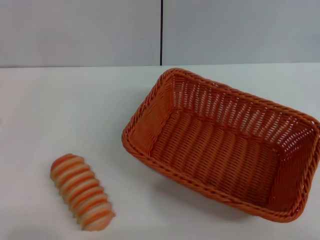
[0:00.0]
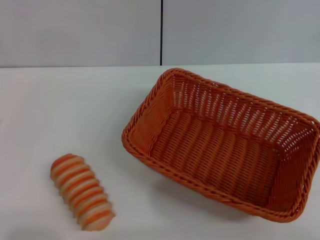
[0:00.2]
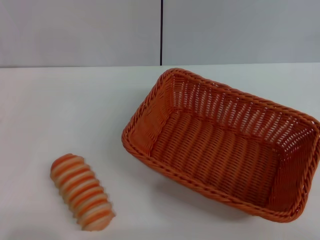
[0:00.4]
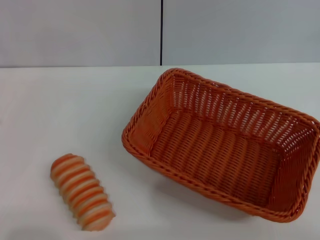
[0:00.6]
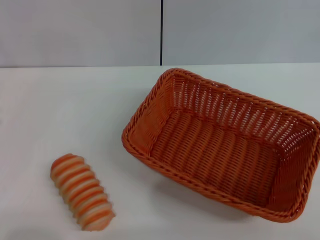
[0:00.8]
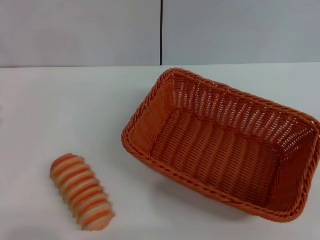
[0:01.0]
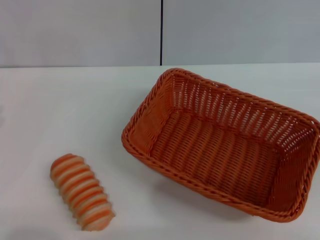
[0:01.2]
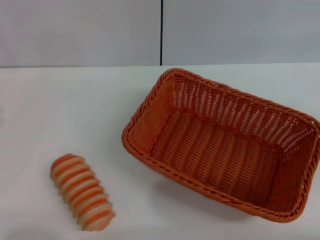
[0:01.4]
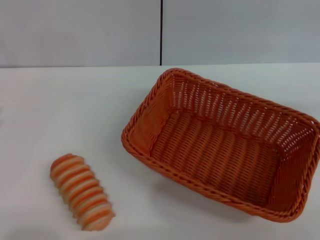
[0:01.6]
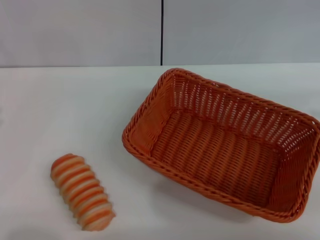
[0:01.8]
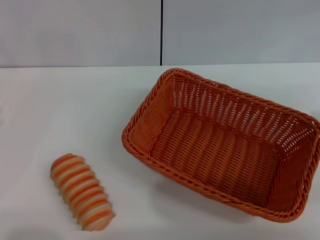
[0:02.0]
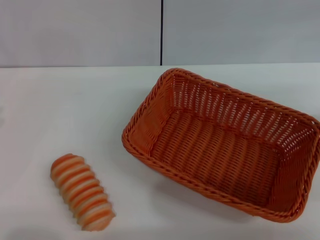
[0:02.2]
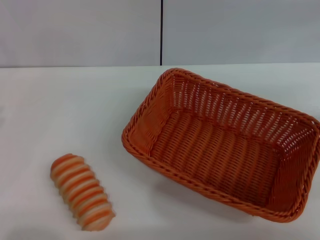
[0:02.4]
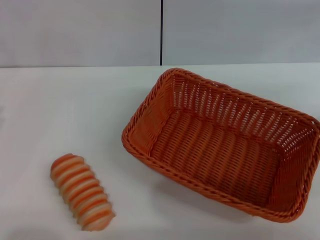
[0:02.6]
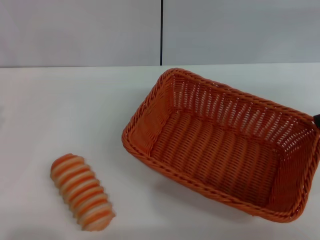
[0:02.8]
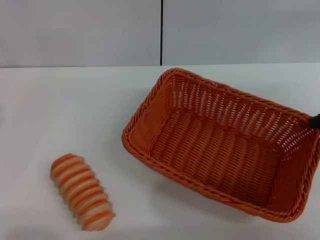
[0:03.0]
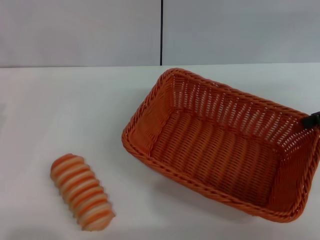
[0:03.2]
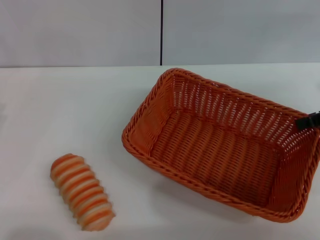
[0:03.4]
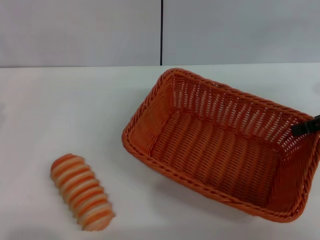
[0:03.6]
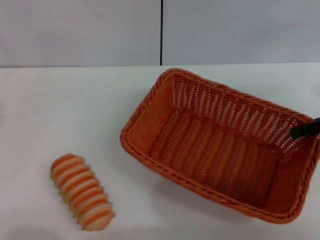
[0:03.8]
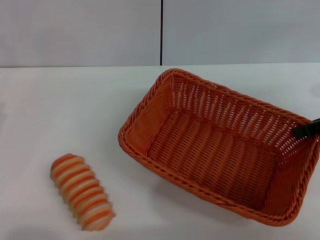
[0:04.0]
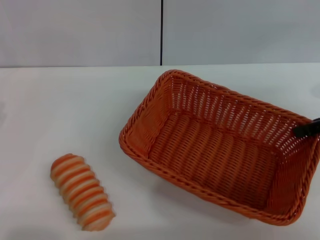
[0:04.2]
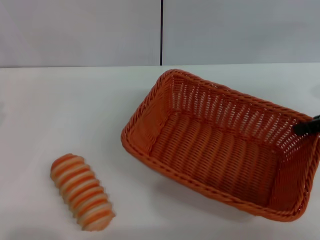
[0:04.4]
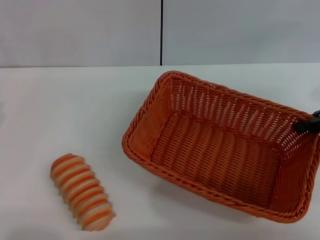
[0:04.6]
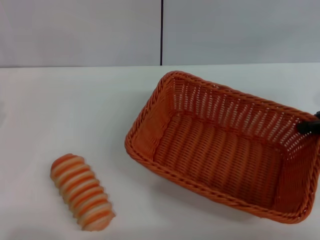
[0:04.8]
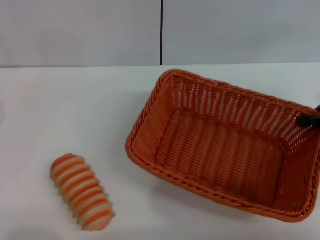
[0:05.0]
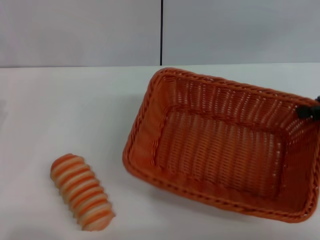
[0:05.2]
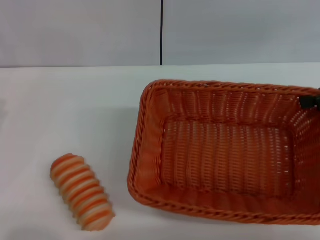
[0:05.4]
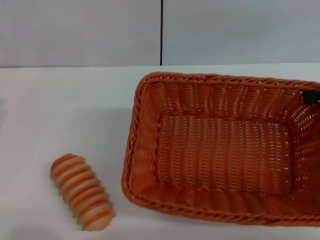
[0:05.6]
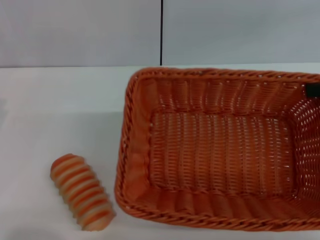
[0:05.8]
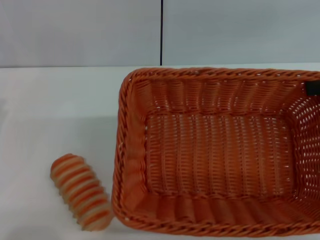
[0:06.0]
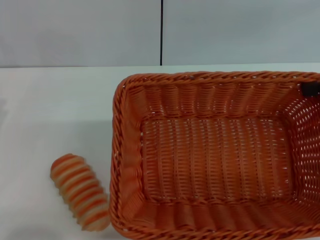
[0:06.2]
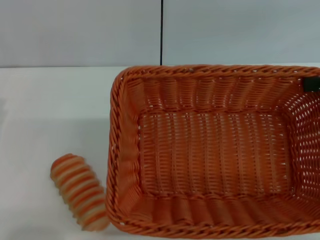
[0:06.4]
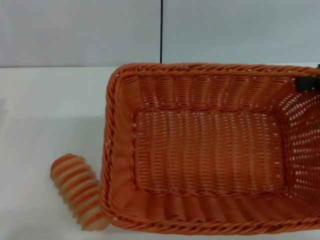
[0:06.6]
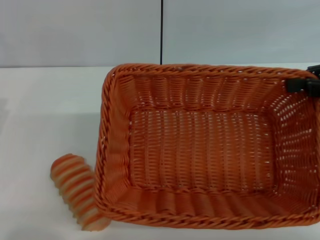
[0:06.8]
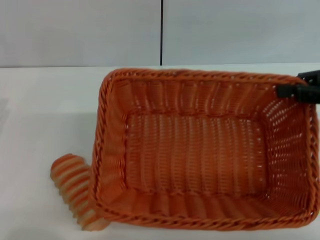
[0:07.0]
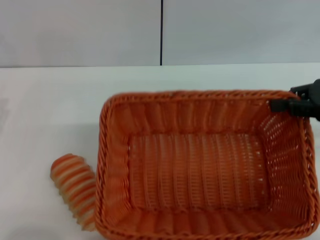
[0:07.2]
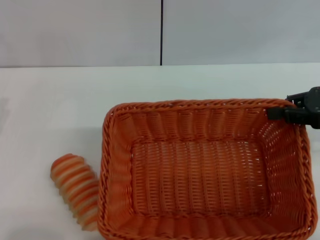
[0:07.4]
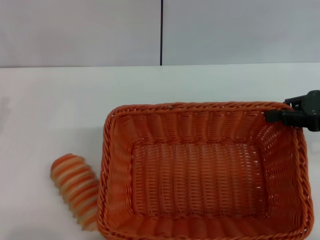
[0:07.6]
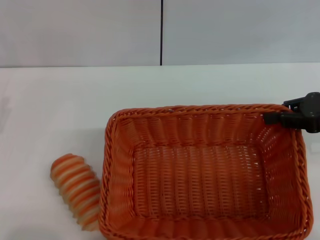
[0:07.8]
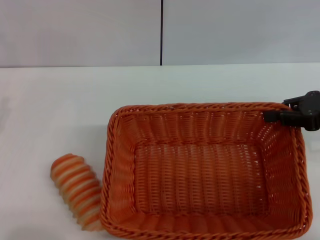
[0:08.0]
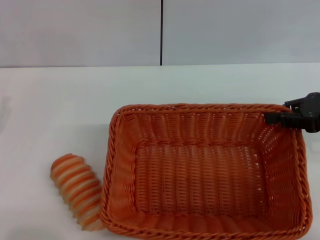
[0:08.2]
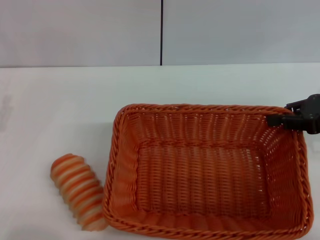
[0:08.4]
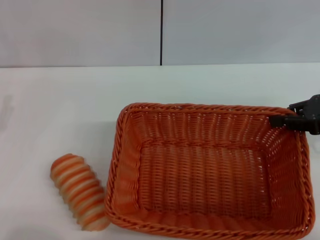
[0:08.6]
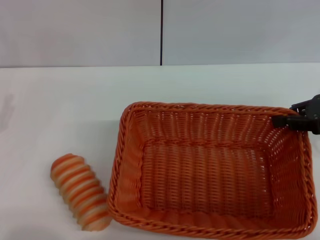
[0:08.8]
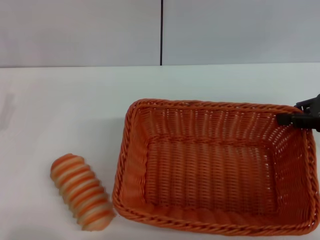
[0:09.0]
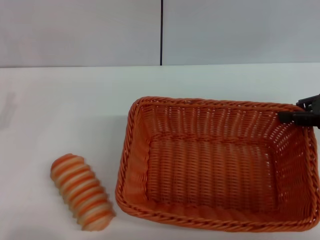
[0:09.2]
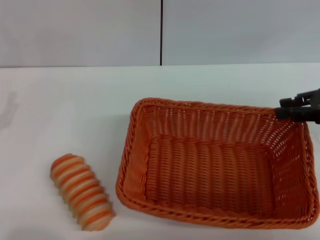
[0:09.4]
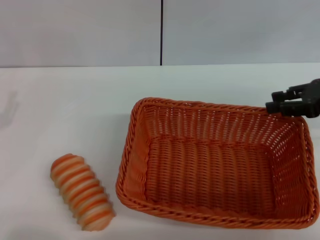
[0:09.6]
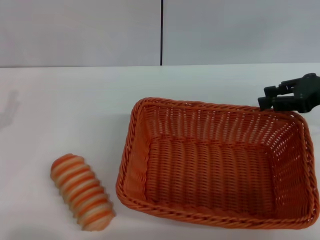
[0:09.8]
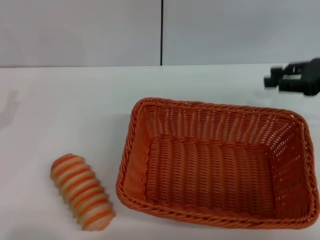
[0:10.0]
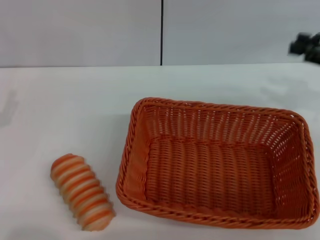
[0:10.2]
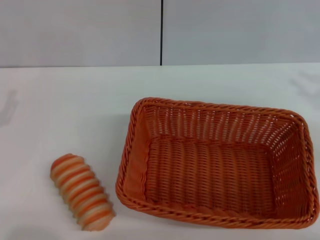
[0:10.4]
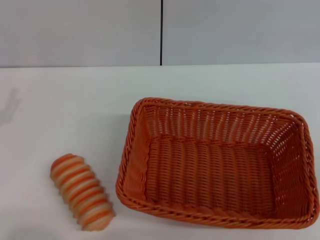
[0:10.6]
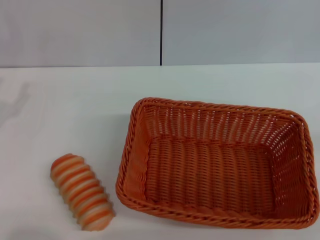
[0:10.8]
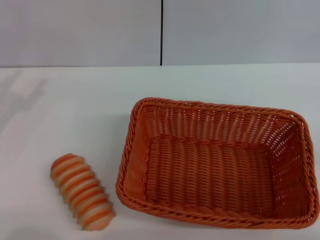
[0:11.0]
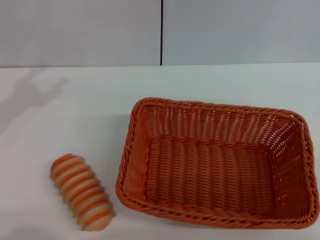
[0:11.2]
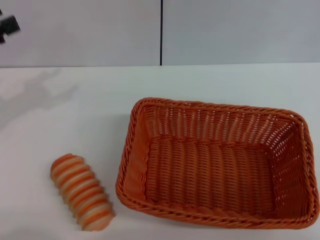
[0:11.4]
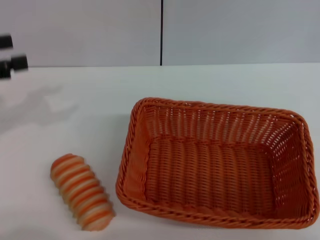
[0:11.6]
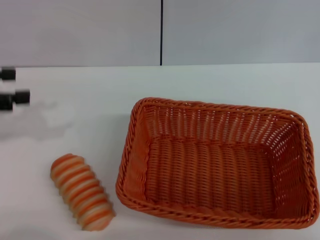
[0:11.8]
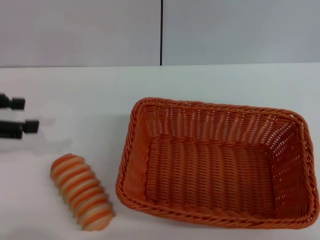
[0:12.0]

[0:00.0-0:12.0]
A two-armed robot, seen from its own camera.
Step, 0:00.0 to 0:05.8: Pick up the light basket with the right gripper.
Step, 0:06.0 to 0:09.8: Place the light basket in the center of view with the right gripper.
0:03.0 to 0:04.4: The right gripper closes up.
0:04.4 to 0:06.0: The right gripper shifts about 5 cm upward.
0:06.0 to 0:07.6: The right gripper moves downward, roughly 5 cm.
0:07.6 to 0:09.0: There are only small adjustments of the grippers.
0:09.0 to 0:10.4: The right gripper goes about 5 cm to the right, and opens.
0:10.4 to 0:12.0: The left gripper moves upward and forward, approximately 10 cm.

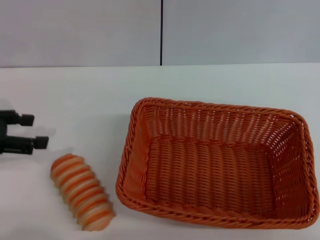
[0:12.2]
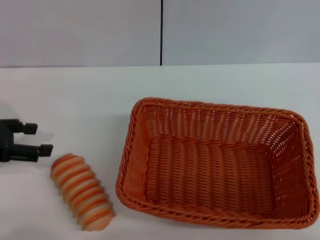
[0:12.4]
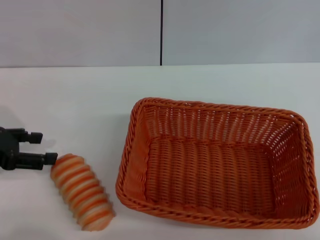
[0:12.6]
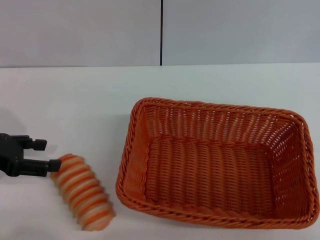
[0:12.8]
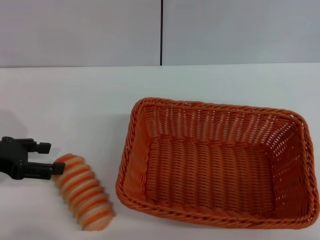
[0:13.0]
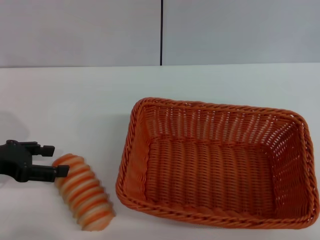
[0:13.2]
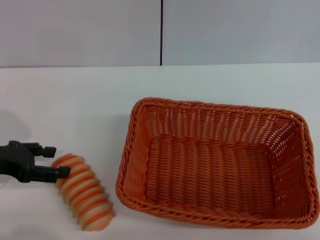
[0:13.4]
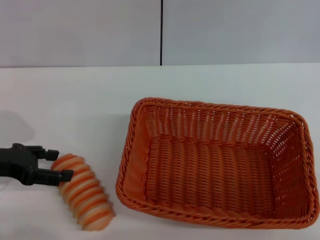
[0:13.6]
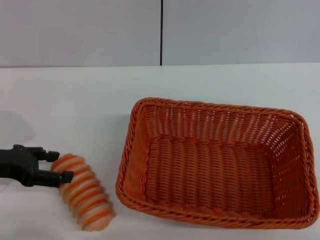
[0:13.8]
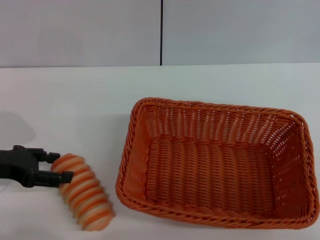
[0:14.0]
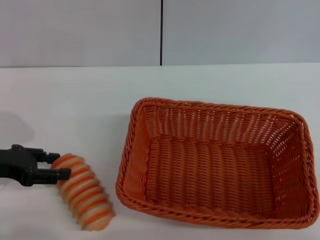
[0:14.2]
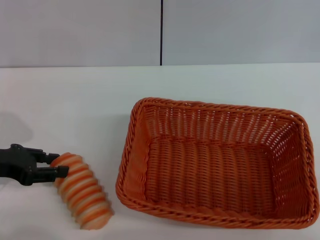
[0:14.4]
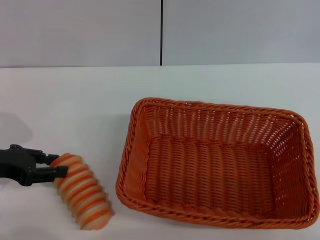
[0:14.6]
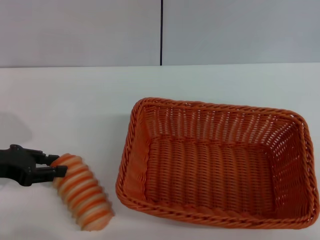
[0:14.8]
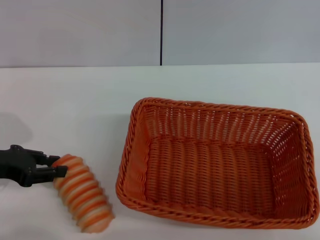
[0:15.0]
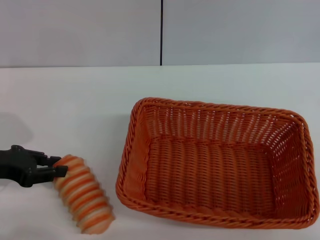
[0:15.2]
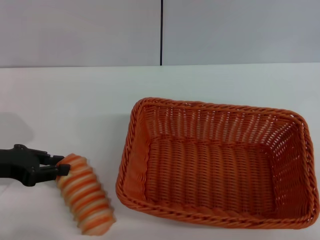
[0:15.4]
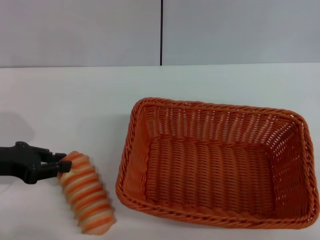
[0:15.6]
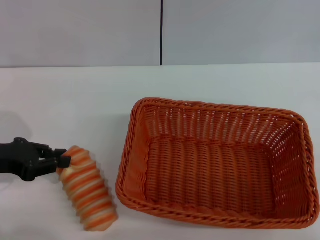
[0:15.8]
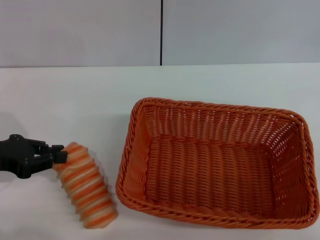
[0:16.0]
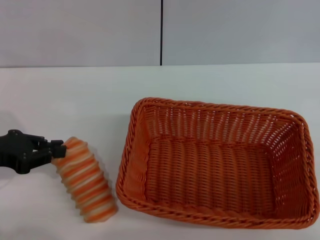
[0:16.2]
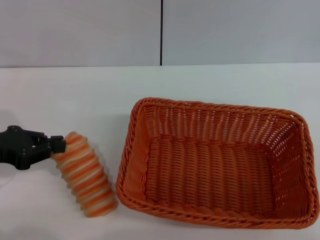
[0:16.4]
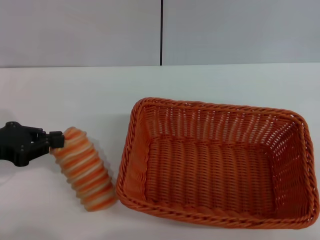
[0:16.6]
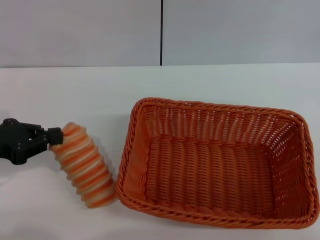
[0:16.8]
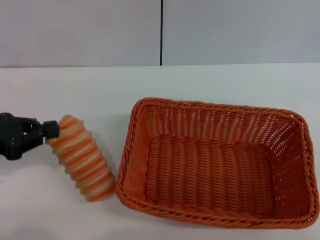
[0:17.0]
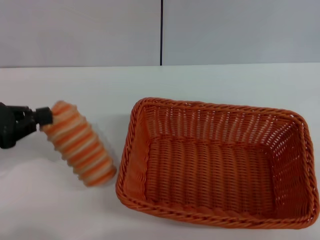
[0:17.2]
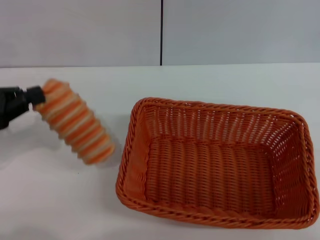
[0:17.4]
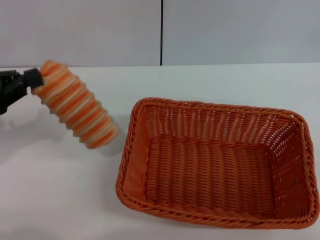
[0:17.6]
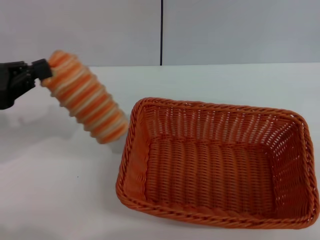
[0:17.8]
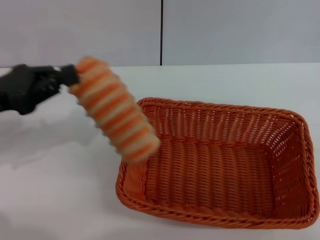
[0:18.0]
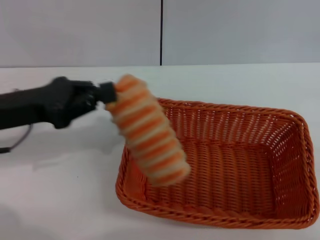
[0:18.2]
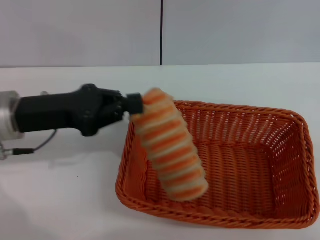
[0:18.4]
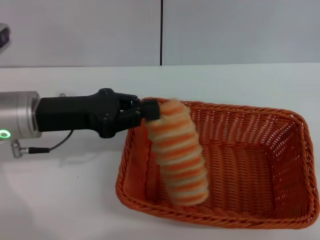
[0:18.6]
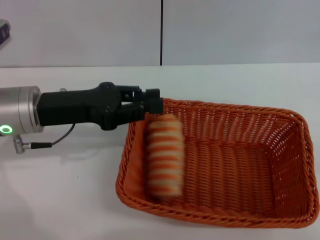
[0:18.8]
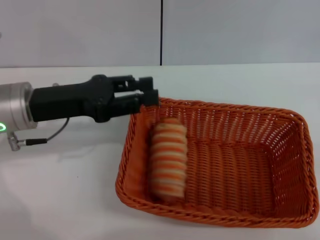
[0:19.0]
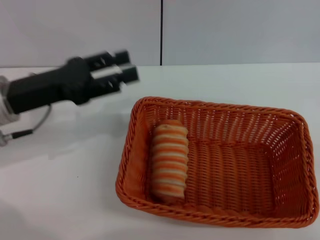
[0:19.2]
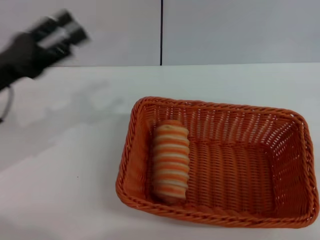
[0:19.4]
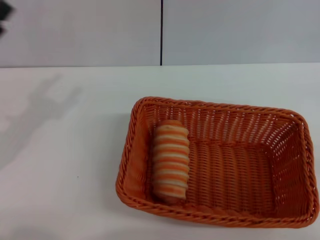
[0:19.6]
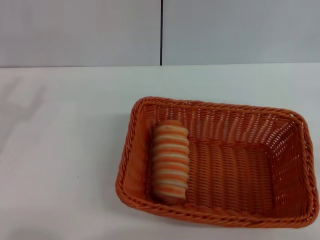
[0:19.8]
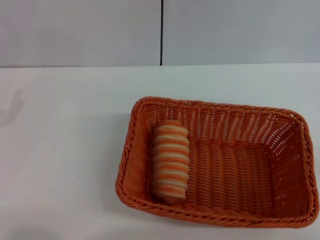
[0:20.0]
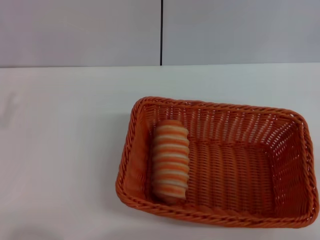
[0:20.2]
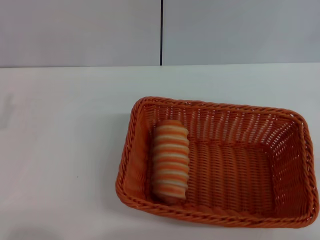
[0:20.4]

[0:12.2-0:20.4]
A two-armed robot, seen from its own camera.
Step, 0:12.2 to 0:17.2: Pick up the long bread with the left gripper.
Step, 0:17.4 to 0:18.8: Place the long bread into the light basket with the left gripper.
0:12.2 to 0:13.8: The left gripper is displaced downward by about 5 cm.
0:13.8 to 0:15.4: The left gripper closes up.
0:17.2 to 0:18.8: The left gripper heads to the right, covering roughly 10 cm.
0:18.8 to 0:20.4: The left gripper travels to the left and backward by about 15 cm, and opens up.

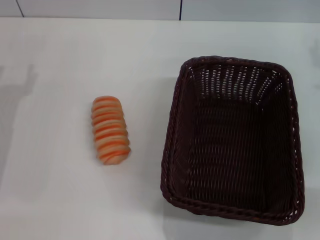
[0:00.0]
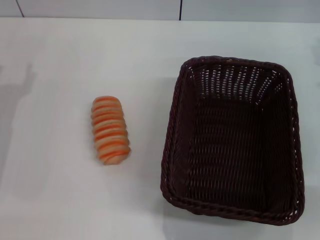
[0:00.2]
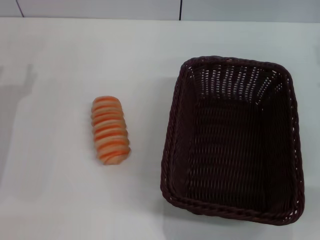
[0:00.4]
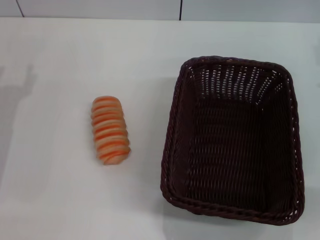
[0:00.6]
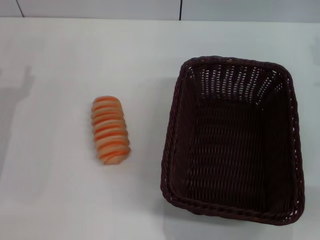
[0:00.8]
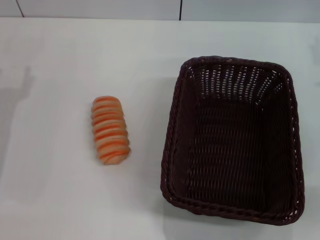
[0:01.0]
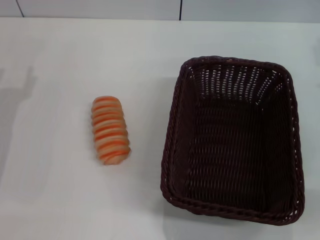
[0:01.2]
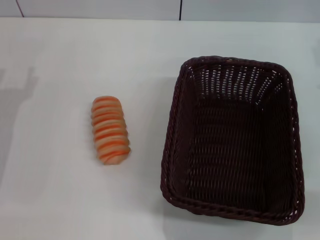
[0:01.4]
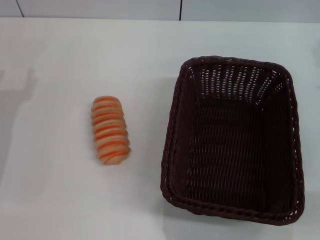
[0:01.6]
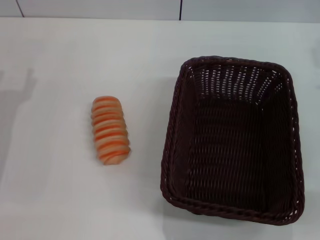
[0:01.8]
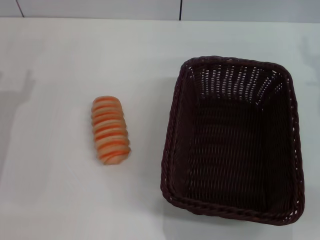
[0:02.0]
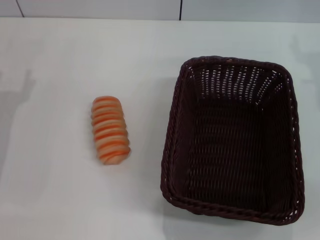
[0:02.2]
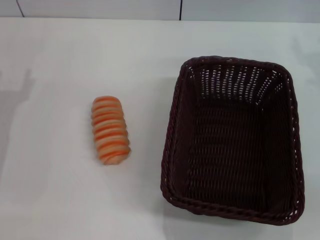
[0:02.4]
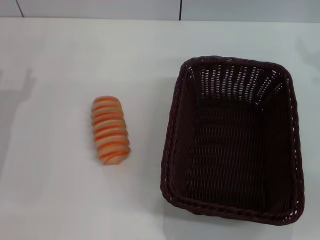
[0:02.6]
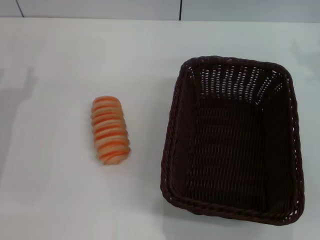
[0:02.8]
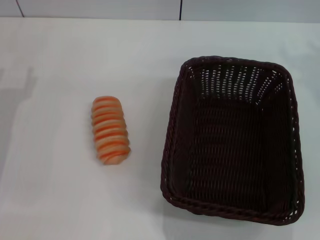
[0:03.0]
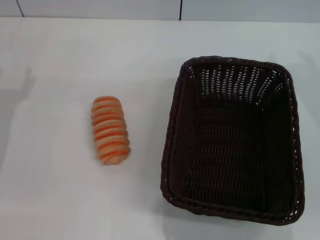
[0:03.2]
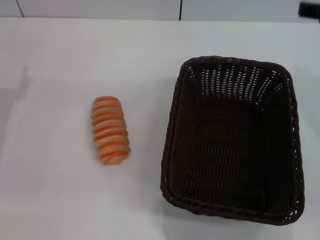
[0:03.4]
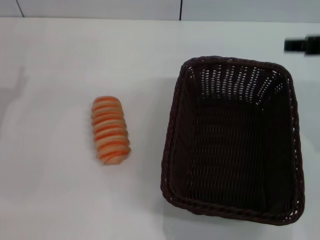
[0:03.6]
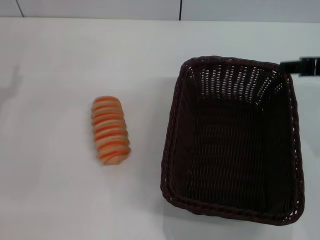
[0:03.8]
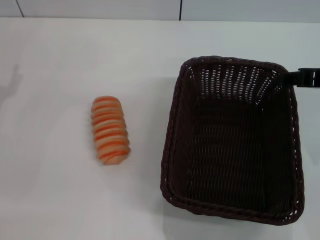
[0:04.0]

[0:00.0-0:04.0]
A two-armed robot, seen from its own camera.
0:02.6 to 0:04.0: The right gripper heads to the left, covering about 10 cm.
